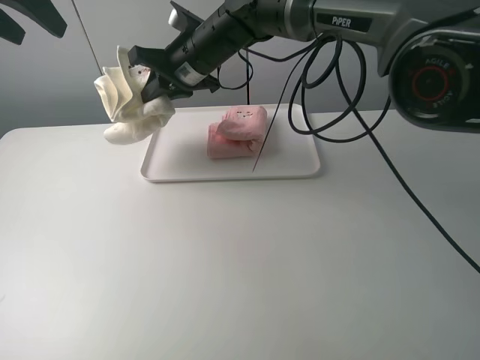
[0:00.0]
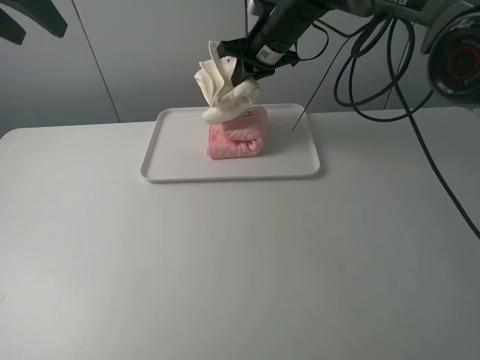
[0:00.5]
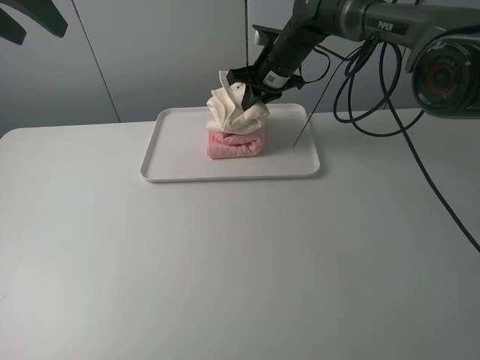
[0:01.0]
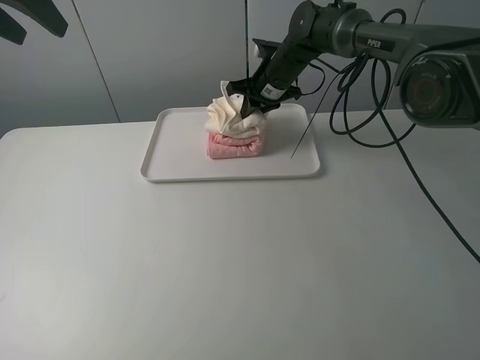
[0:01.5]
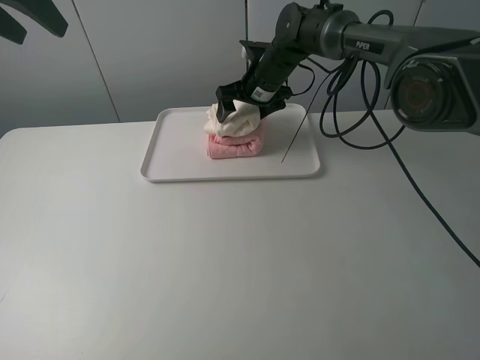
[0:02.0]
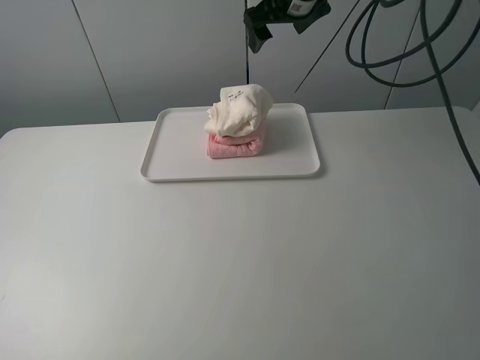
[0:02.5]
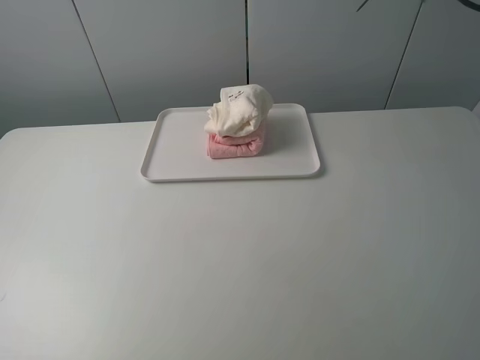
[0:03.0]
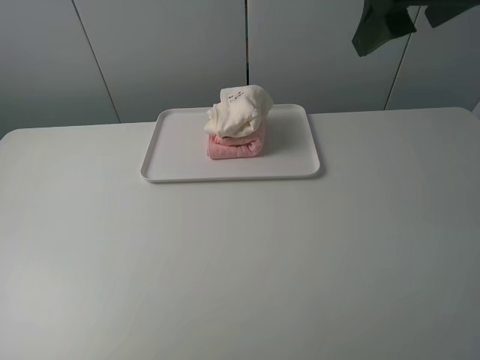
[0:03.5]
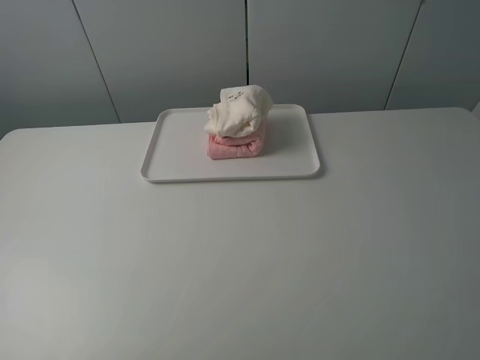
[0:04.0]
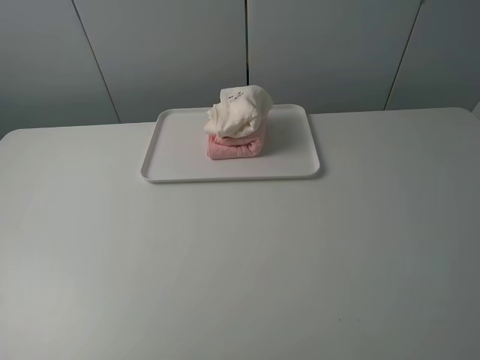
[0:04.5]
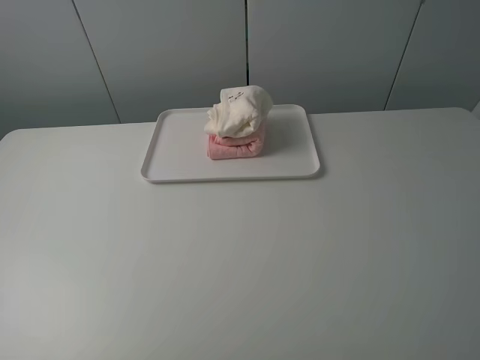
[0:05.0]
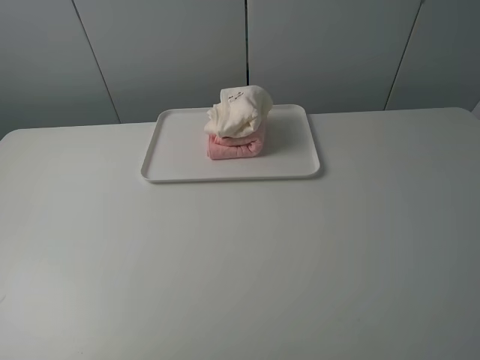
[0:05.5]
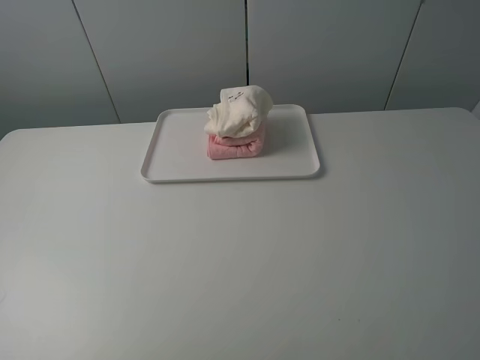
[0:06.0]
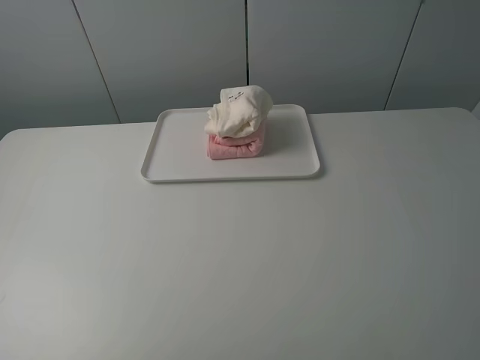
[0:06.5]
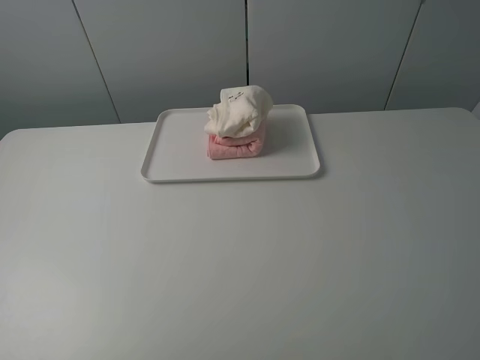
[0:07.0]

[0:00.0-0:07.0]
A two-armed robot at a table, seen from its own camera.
Task of the whole recording: fold one of the towels by two grippers and place it on the tray,then fold another towel by two grippers and place it on the folded towel.
Step, 0:00.0 to 0:02.0: Place the white towel on the pink towel with the right gripper.
0:00.0 to 0:02.0: The right gripper travels to the right, downward and forward by some 15 cm, and opens up.
0:02.0 to 0:03.5: The left gripper is displaced backward by approximately 30 cm, while the right gripper heads backward, upward and to the right, covering about 35 cm.
0:03.5 to 0:05.0: The right gripper shifts roughly 25 cm backward.
